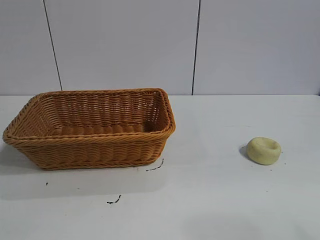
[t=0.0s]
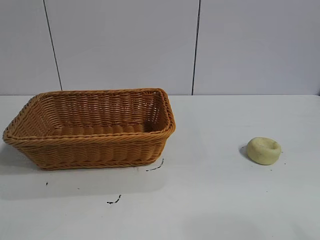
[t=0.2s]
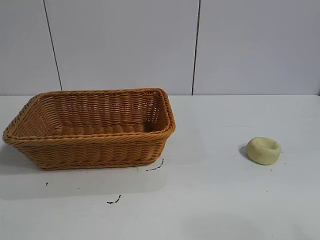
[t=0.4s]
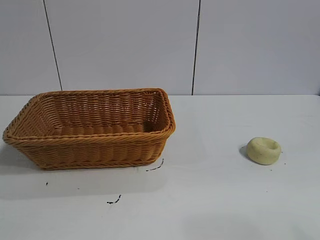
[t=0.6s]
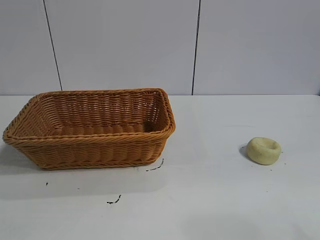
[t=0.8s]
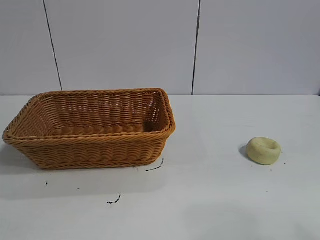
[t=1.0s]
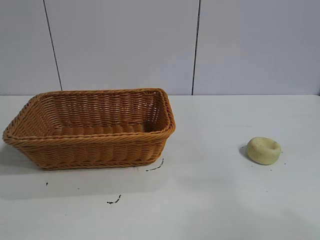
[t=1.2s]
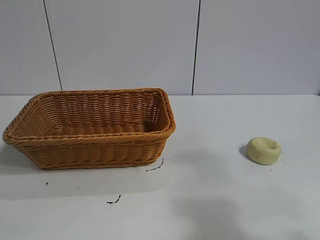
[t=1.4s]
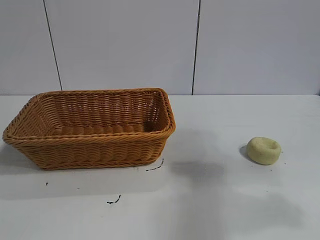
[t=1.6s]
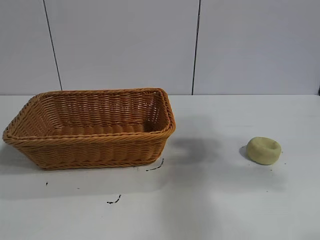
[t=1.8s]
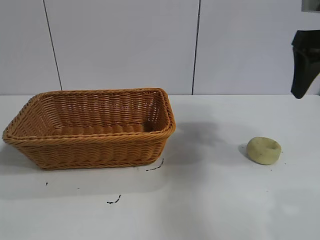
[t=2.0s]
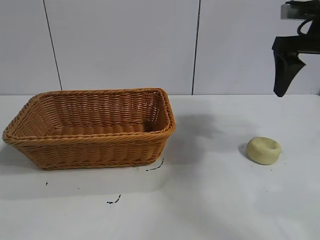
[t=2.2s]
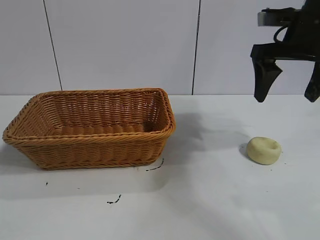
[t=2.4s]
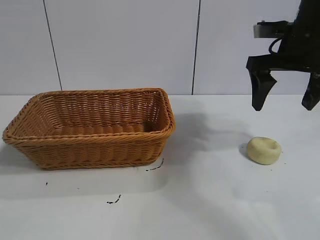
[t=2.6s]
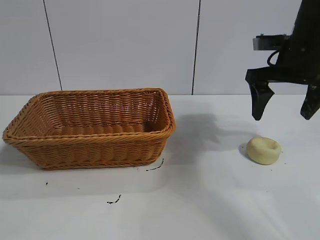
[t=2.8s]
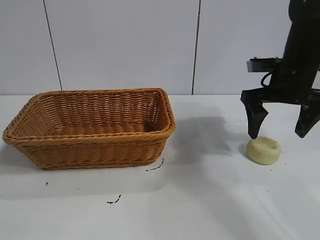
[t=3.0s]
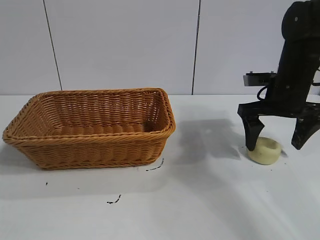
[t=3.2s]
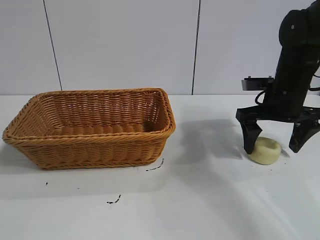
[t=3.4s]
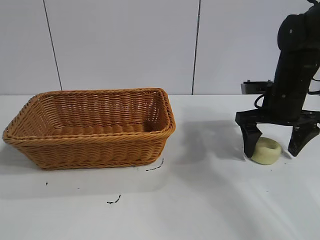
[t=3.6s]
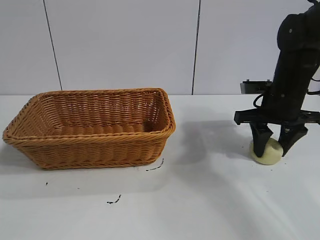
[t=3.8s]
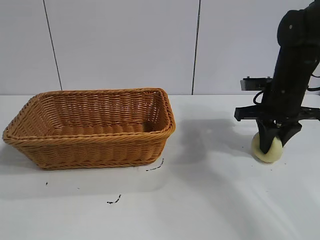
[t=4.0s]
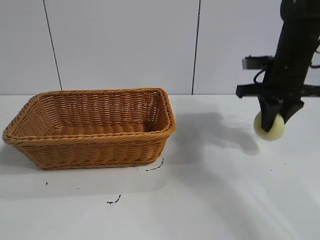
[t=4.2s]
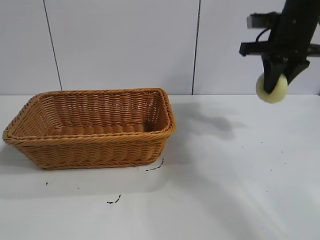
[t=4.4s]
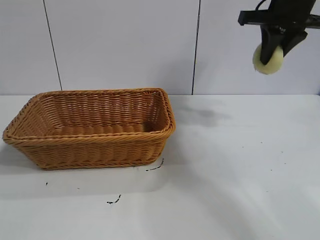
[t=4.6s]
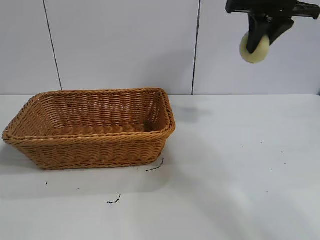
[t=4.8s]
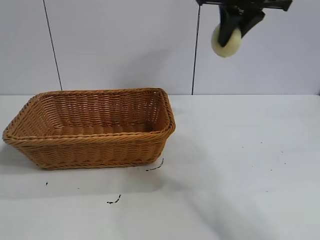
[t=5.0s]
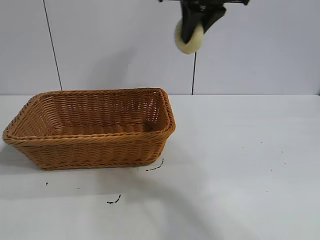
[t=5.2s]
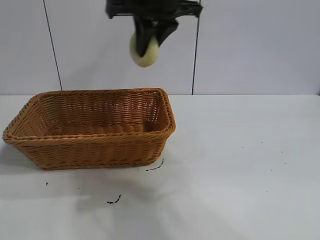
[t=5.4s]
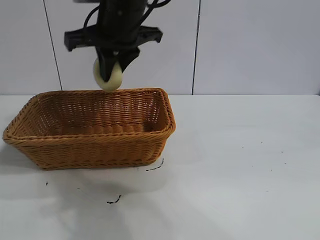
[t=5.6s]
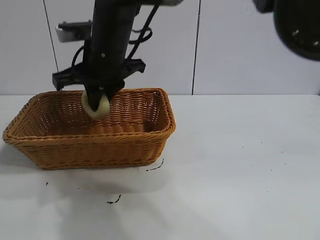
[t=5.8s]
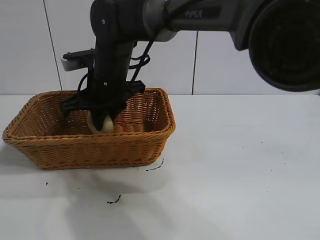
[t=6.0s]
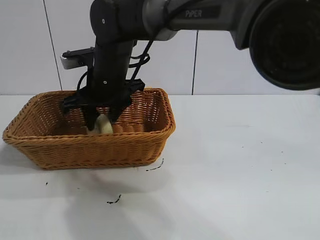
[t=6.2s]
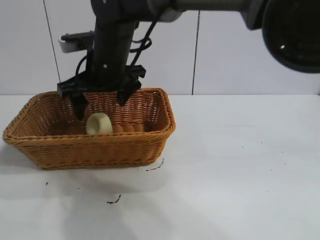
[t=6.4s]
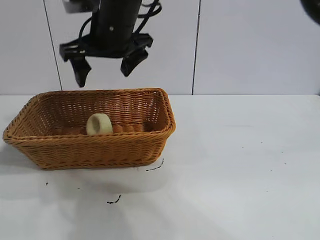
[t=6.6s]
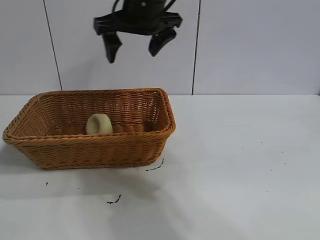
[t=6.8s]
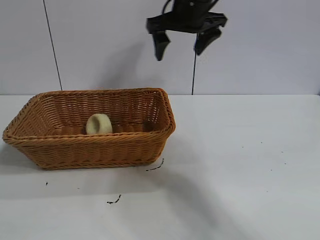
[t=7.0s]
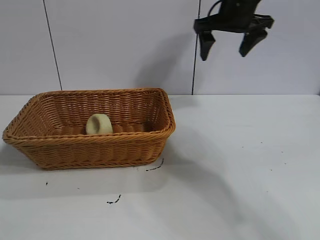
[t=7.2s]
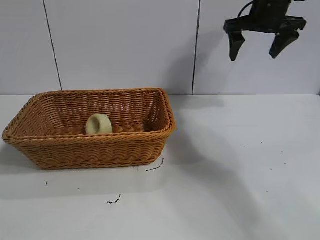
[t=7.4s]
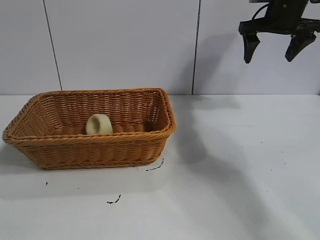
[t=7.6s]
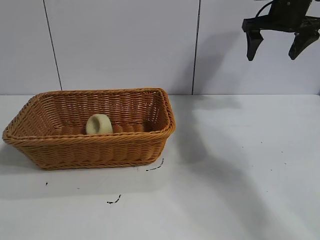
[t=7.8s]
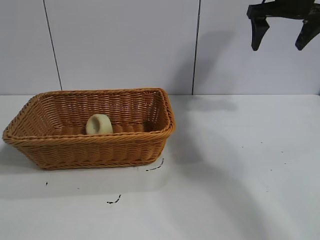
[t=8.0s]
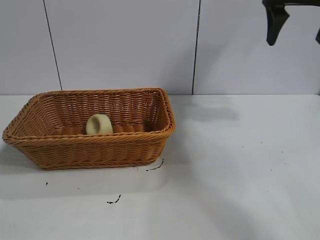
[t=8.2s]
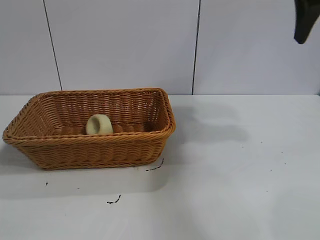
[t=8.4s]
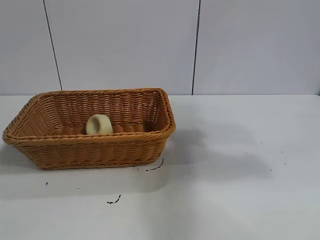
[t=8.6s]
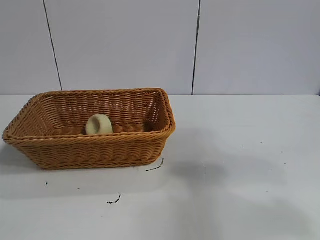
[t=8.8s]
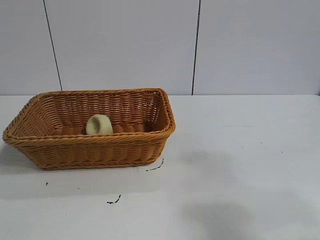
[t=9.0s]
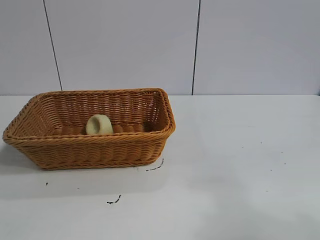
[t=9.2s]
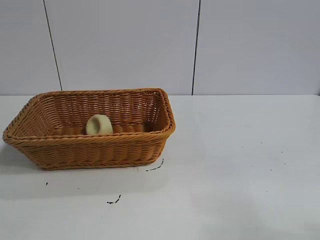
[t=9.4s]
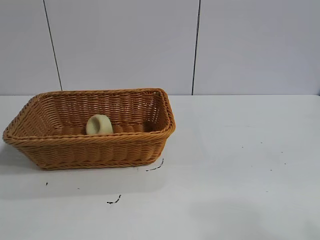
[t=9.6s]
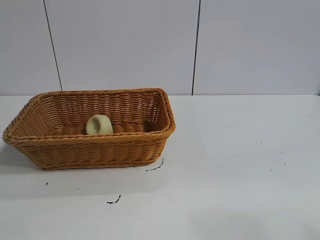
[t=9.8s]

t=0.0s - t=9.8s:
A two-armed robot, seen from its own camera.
Task of the whole recording: pick up the egg yolk pastry and put it into the basket.
Step, t=0.8s - t=4.0s: Grasp egg yolk pastry with right gripper.
Step, t=4.2s - t=6.2s: Place the egg yolk pastry in the basket with right gripper.
